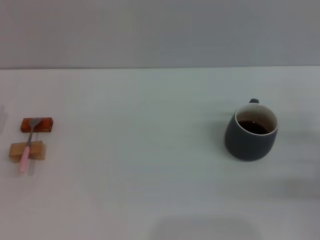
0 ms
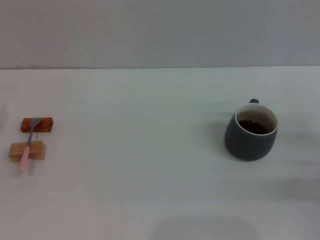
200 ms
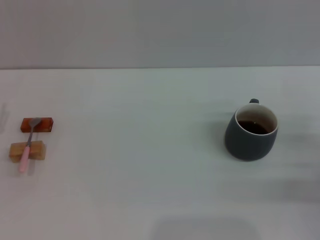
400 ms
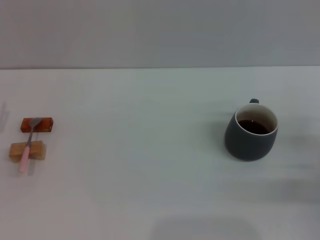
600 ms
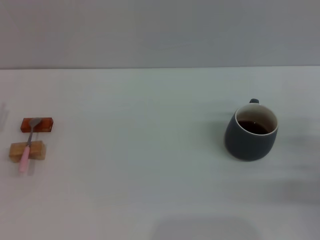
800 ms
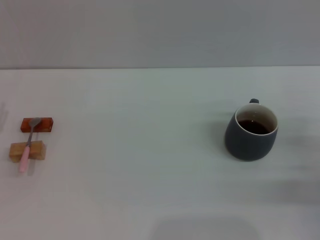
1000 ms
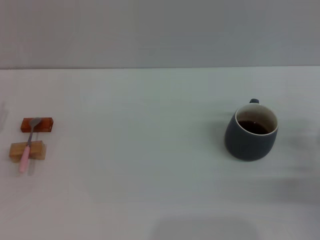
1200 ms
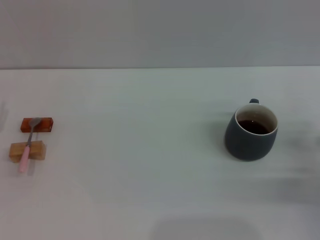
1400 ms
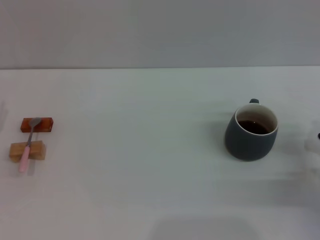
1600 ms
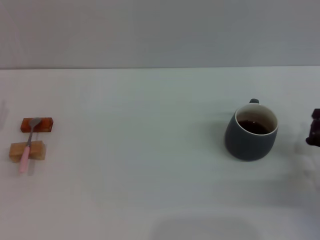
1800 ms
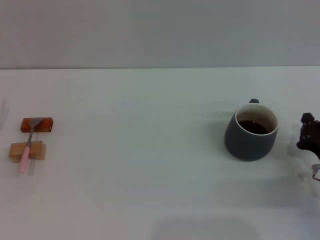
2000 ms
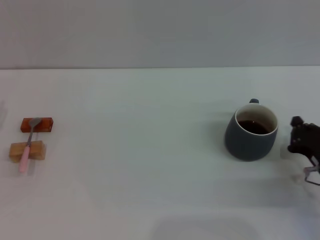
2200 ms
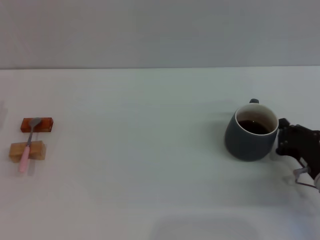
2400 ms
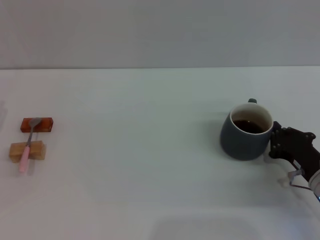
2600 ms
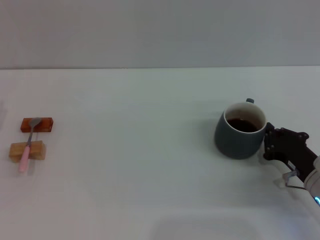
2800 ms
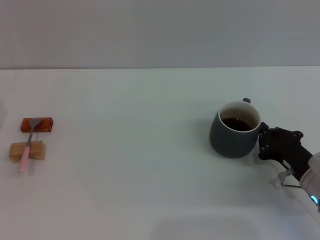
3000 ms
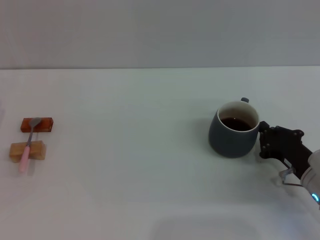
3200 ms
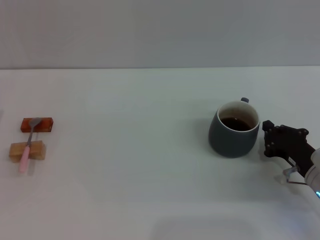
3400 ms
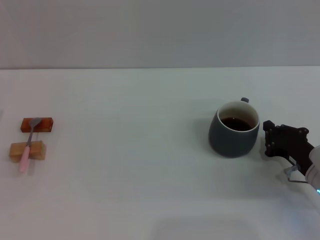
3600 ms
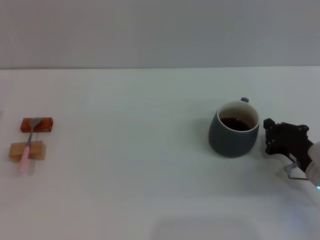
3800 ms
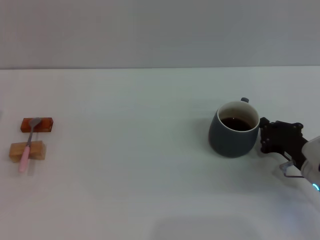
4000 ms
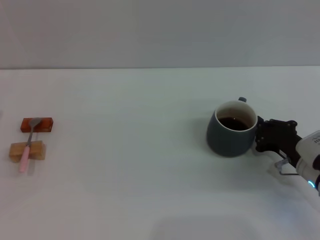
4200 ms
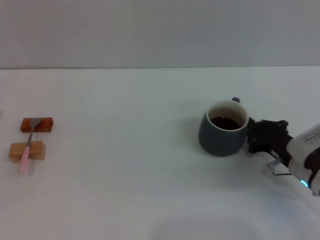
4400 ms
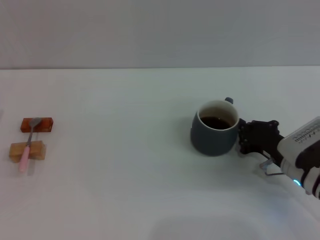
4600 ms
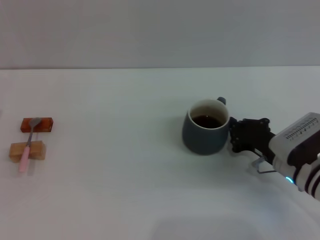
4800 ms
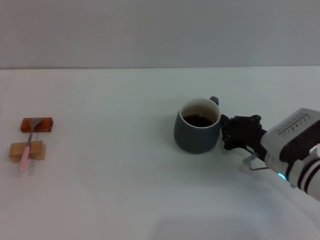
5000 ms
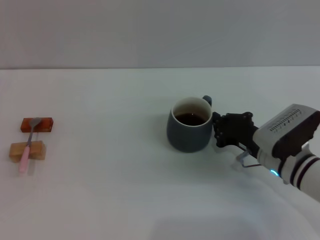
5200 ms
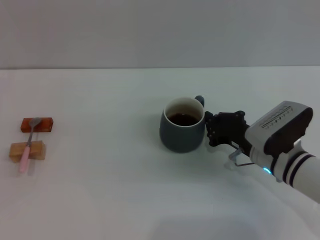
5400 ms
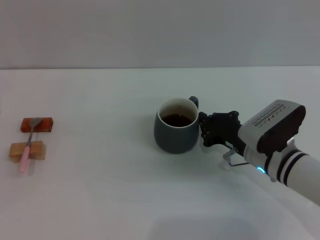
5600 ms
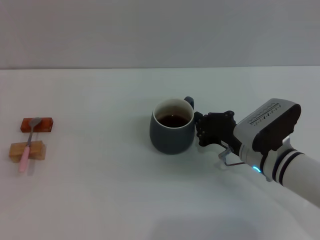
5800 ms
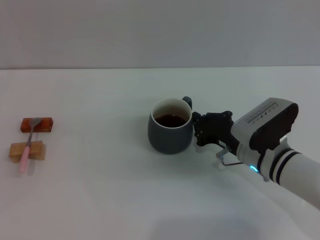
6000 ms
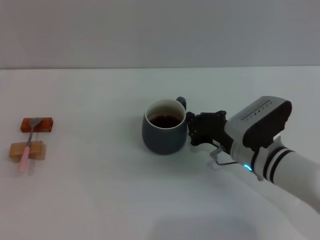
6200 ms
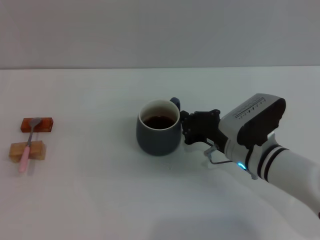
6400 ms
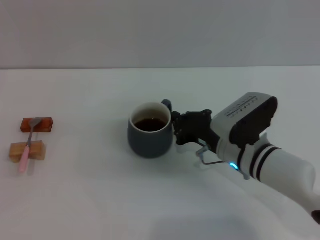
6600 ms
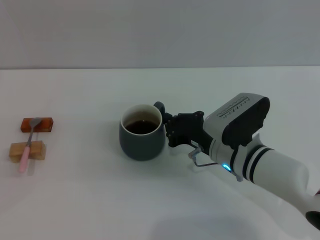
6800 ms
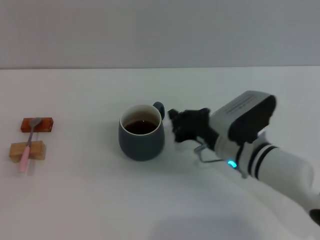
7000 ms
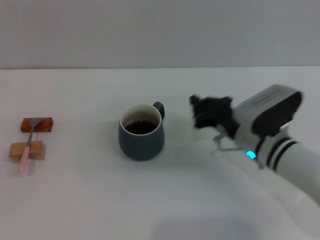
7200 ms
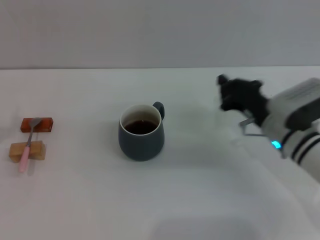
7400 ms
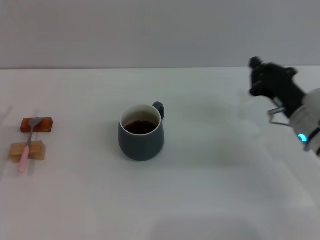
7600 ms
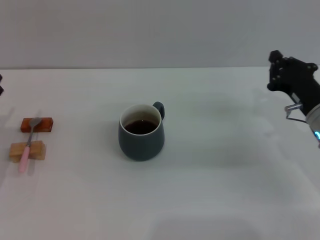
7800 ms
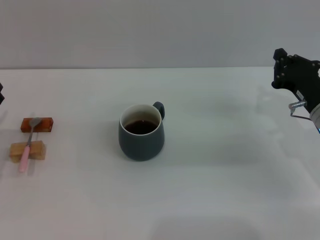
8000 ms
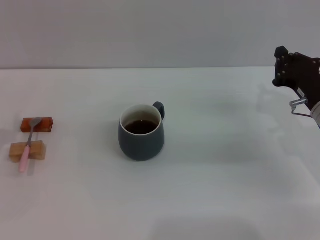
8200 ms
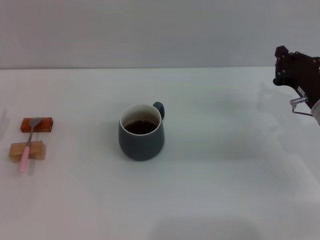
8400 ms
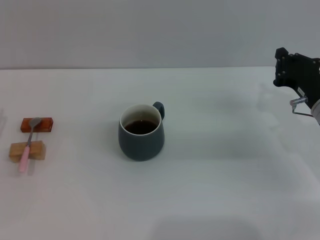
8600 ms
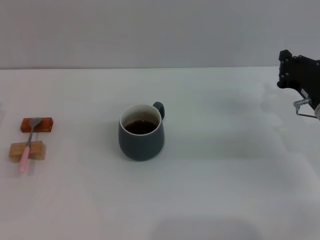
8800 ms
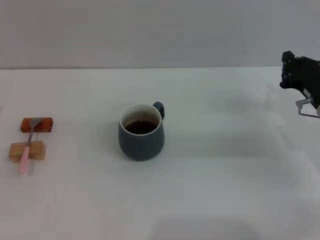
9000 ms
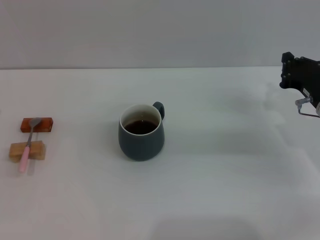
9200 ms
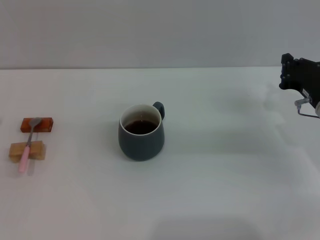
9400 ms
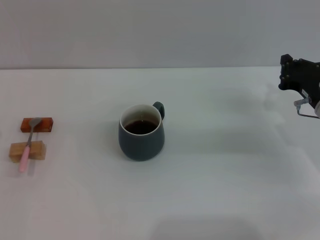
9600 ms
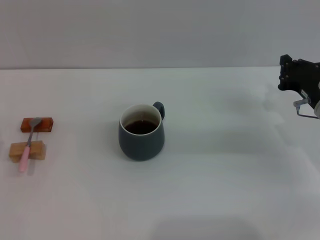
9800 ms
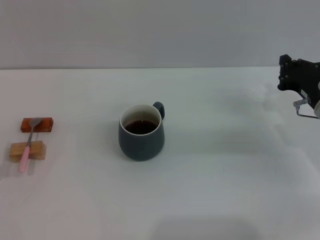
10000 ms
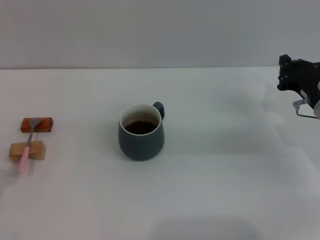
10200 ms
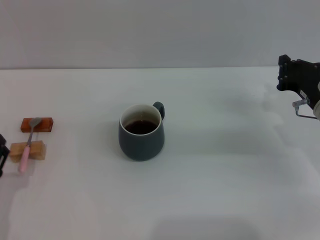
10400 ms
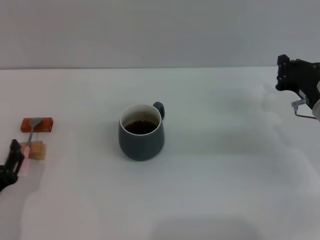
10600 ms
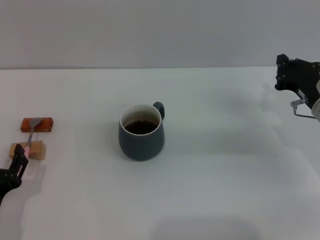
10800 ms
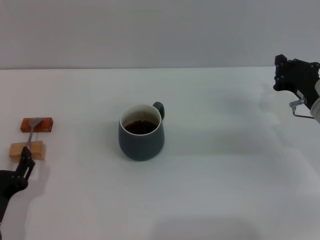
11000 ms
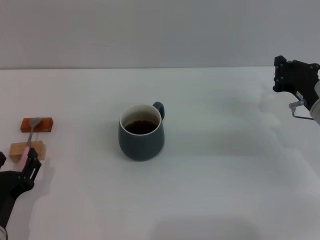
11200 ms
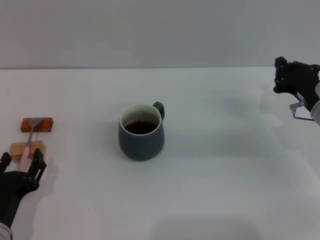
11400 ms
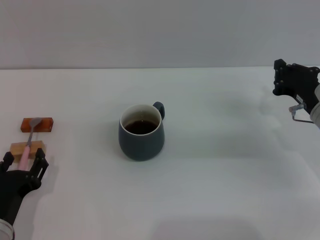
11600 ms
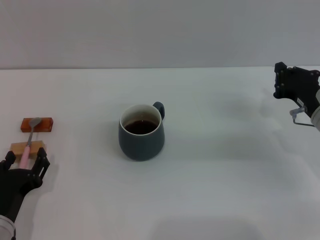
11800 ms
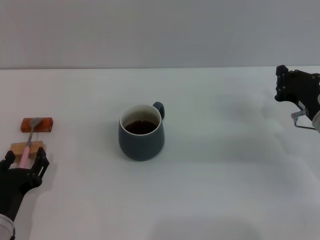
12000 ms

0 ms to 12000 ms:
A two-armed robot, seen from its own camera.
Task of the whole recording: Move the grey cup to the center, lift the pink spoon, stir it three times in the cup, and put the spoon into the cup.
Step, 0 ms to 7200 ms: Move the cup with coffee to the center of view with the right gripper.
1600 ms to 3000 ms: The right gripper moves to the left, roughly 5 cm.
3000 ms to 4400 ms: The grippers move only a little.
4400 ms to 6000 ms: The right gripper heads to the left, covering approximately 10 cm.
6000 ms to 7600 ms: The right gripper travels to the right by approximately 5 cm.
10400 ms to 12000 ms: The grippers make only small movements.

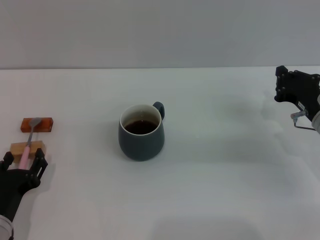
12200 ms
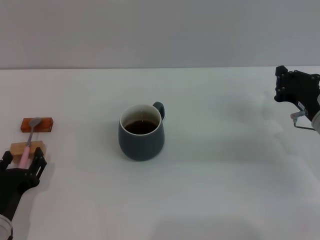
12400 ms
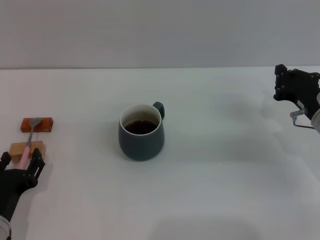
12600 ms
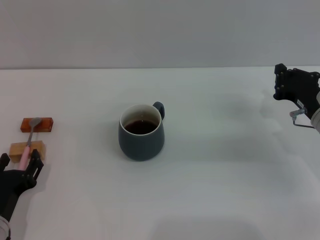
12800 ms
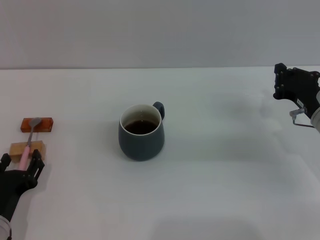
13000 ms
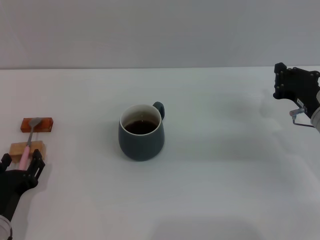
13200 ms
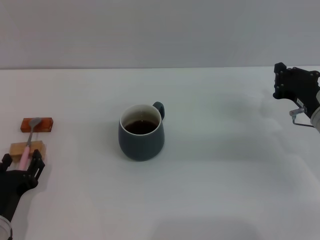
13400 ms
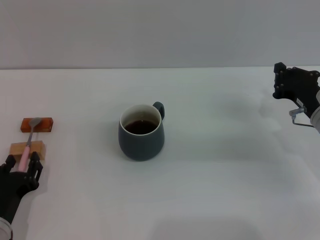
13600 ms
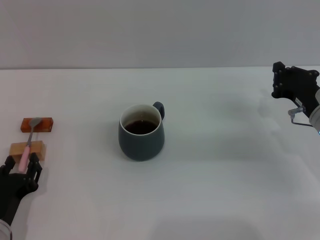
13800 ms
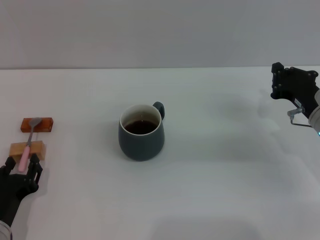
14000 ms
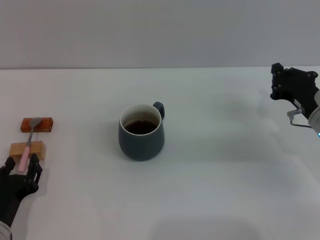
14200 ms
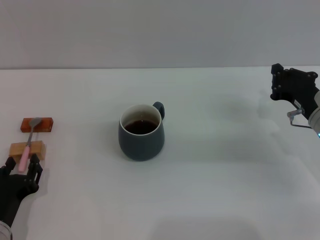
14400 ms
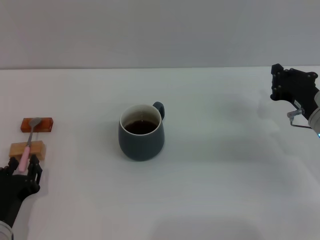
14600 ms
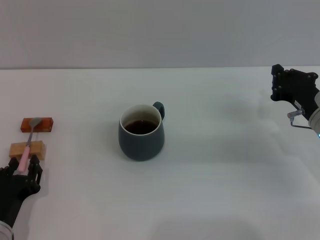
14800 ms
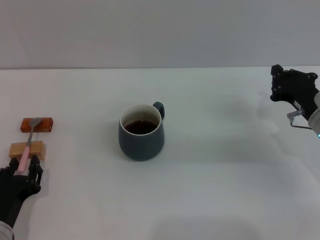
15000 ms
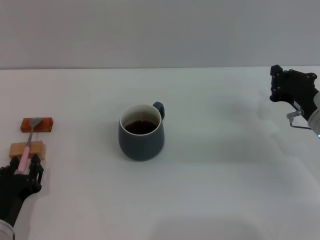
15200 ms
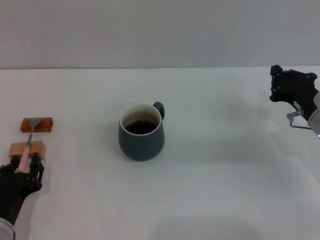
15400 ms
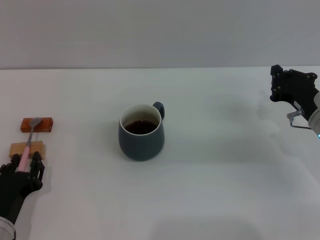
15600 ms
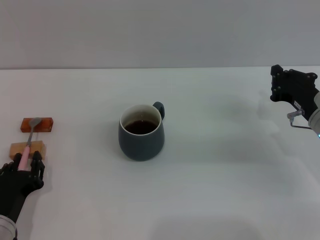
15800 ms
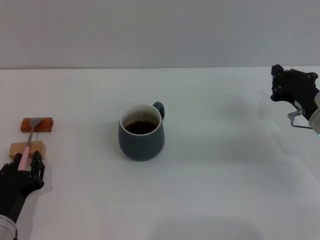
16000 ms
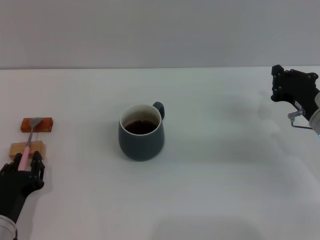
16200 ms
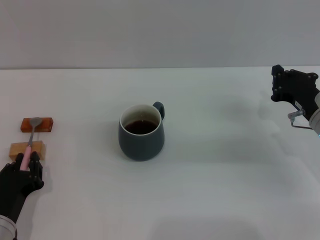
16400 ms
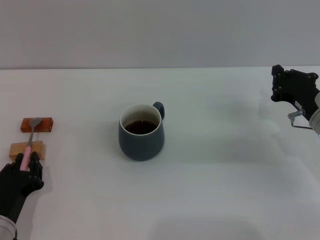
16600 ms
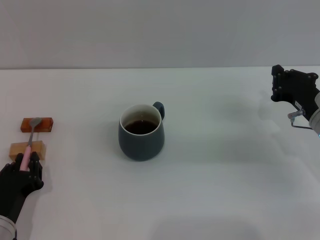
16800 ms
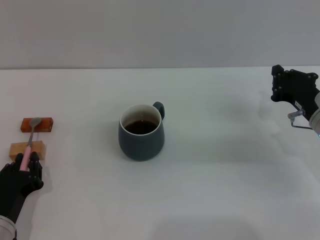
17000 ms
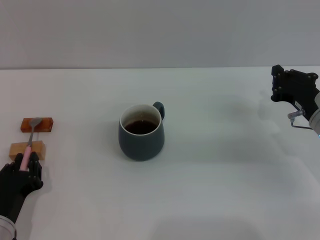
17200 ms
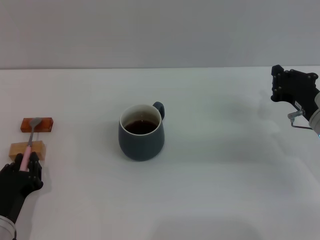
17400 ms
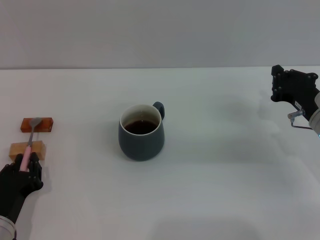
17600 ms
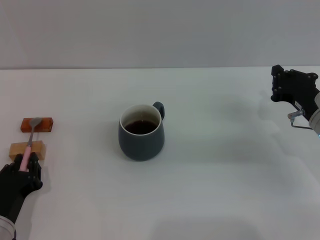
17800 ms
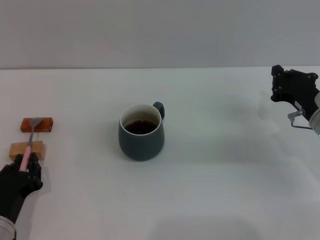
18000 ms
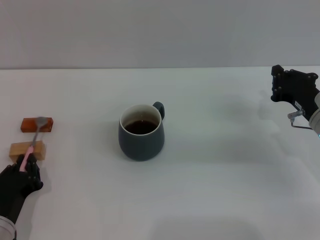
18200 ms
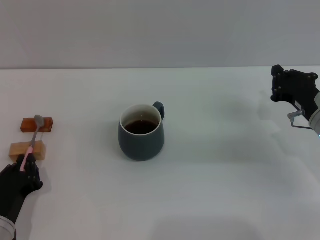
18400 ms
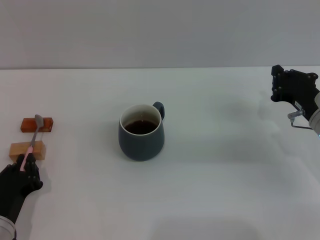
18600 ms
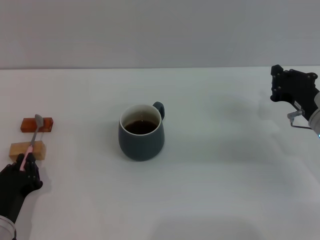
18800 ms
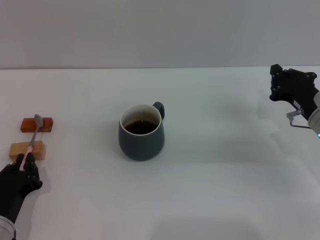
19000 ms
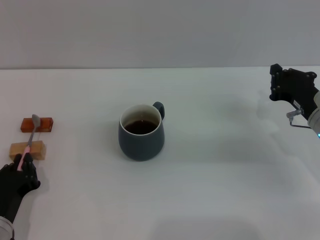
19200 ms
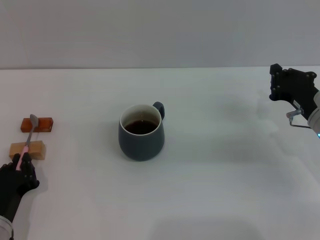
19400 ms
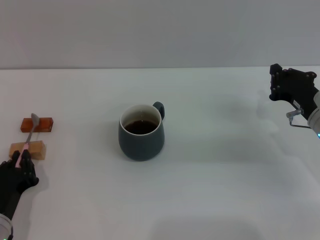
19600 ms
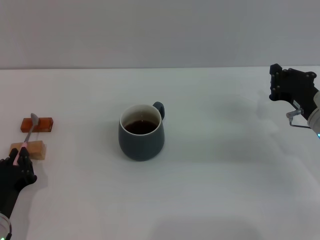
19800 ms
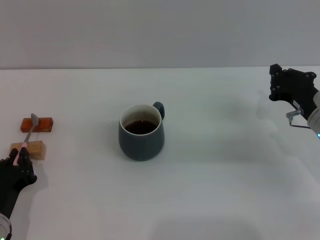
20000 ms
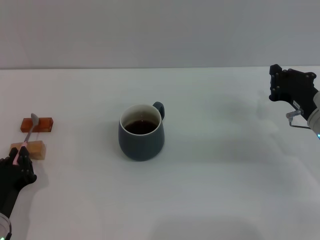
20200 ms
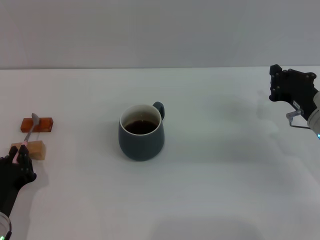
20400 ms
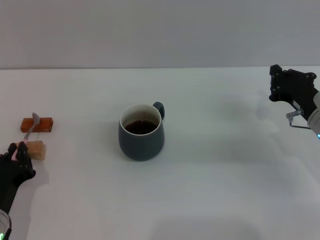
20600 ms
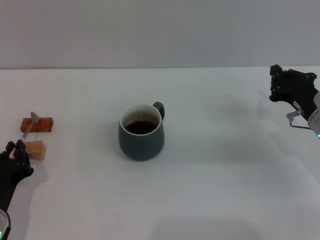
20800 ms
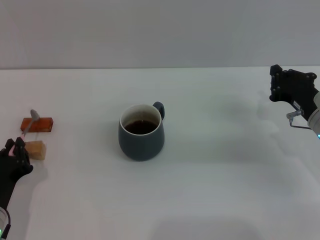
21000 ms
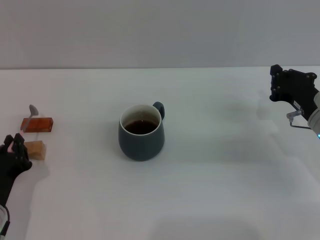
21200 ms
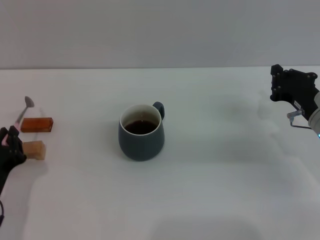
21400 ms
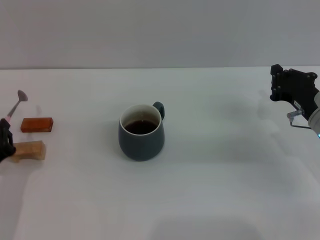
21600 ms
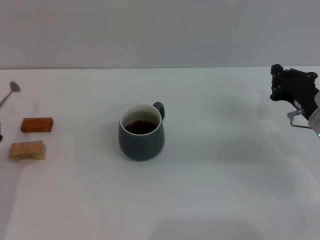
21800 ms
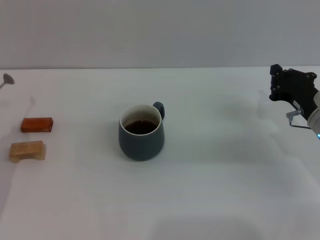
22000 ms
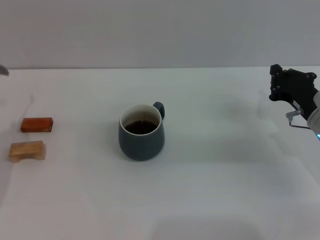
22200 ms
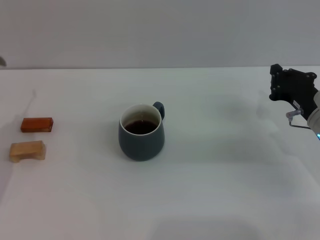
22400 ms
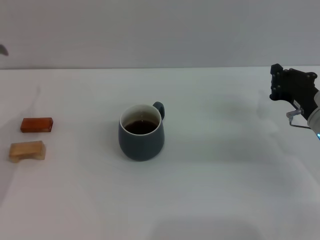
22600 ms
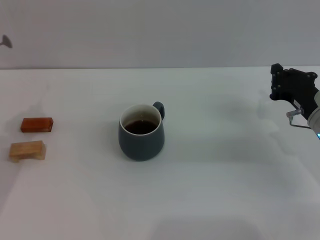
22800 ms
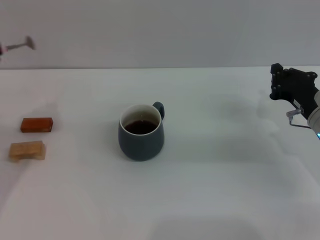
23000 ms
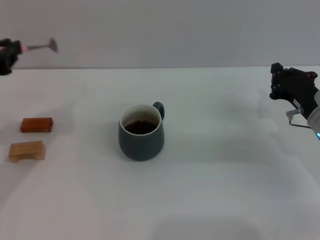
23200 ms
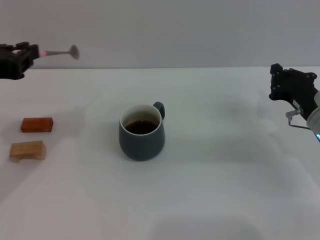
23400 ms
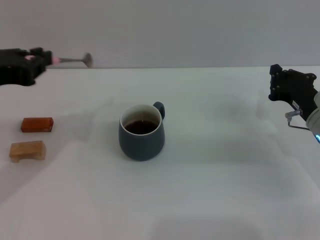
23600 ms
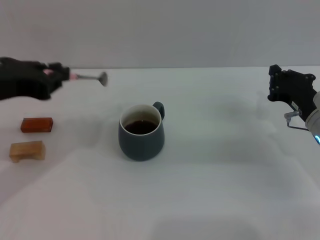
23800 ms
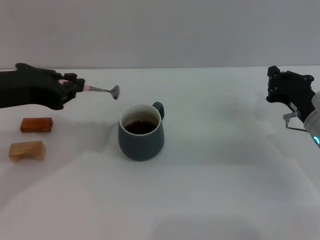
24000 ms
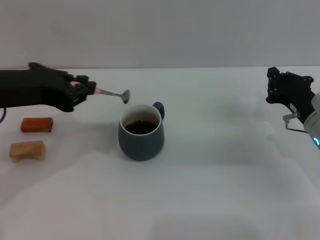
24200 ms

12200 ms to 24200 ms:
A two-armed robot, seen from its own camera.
Task of the whole recording: Move the grey cup to the center, lift the pink spoon, stir it three times in the cup, and put the spoon into the cup.
Step, 12200 ms to 23600 ms: Pick up the spoon with the left gripper.
12200 ms to 19800 ms: Both grippers stay about where they are.
19800 ms to 21200 ms: The grippers make only small movements.
21200 ms to 22600 ms: The left gripper travels upward by roughly 15 cm.
22600 ms to 24200 ms: The left gripper is displaced to the right and upward by roughly 10 cm.
